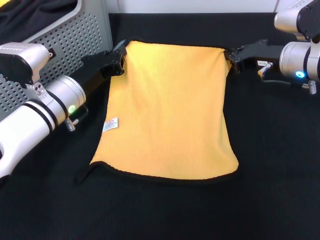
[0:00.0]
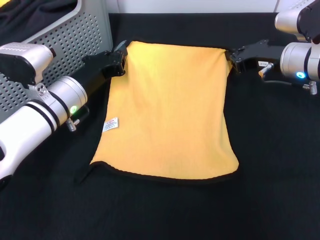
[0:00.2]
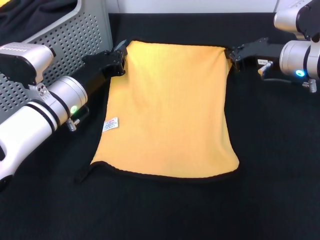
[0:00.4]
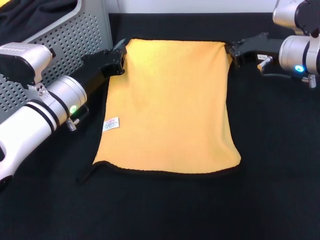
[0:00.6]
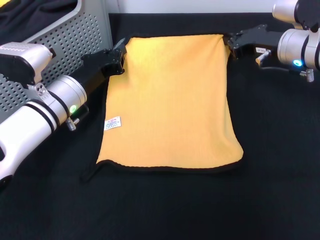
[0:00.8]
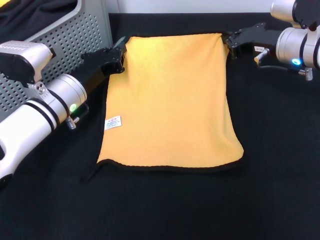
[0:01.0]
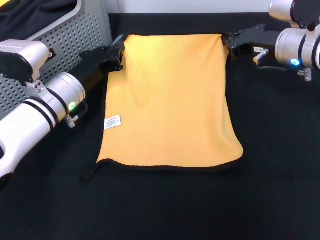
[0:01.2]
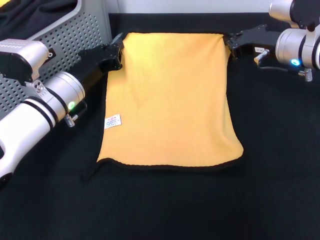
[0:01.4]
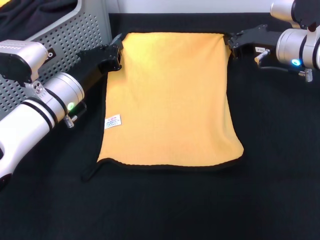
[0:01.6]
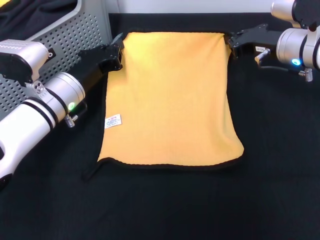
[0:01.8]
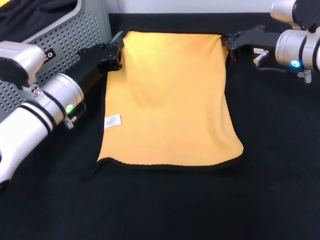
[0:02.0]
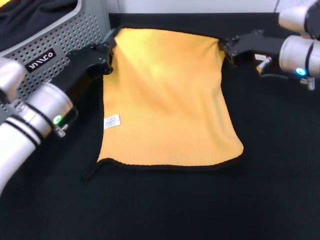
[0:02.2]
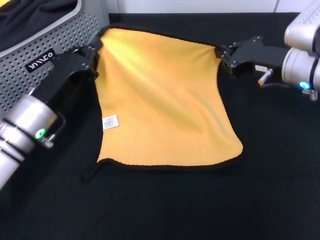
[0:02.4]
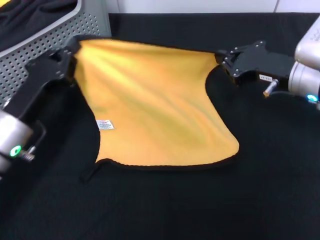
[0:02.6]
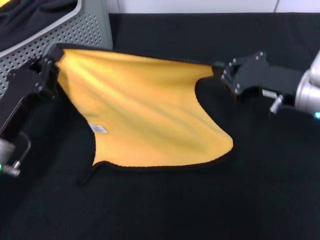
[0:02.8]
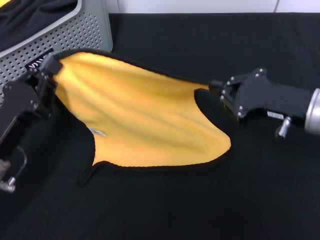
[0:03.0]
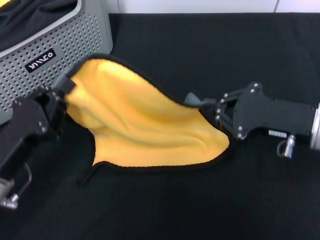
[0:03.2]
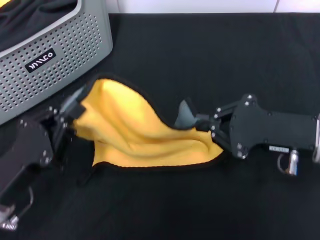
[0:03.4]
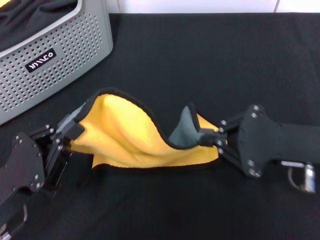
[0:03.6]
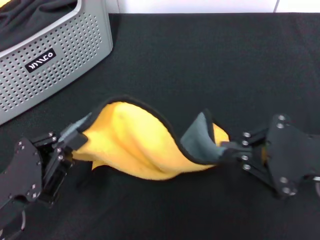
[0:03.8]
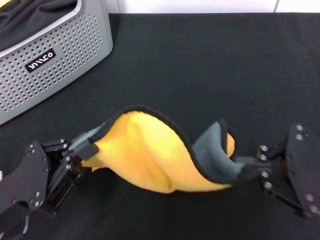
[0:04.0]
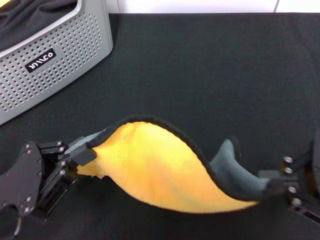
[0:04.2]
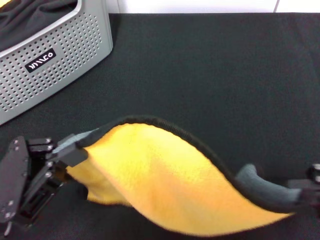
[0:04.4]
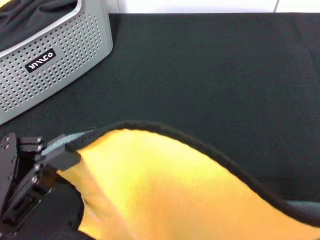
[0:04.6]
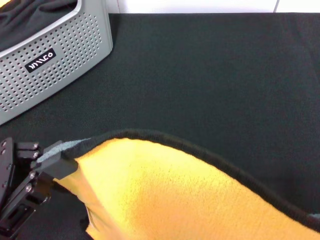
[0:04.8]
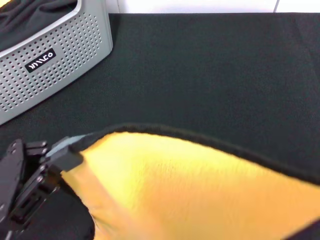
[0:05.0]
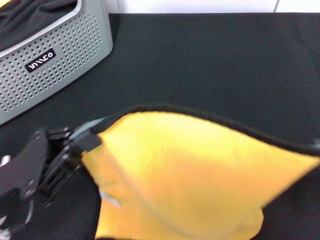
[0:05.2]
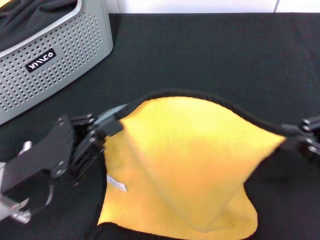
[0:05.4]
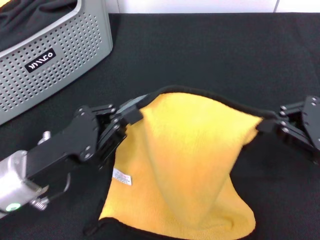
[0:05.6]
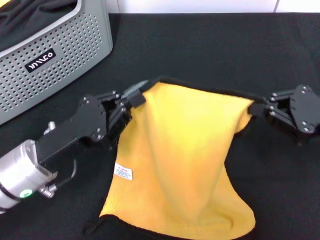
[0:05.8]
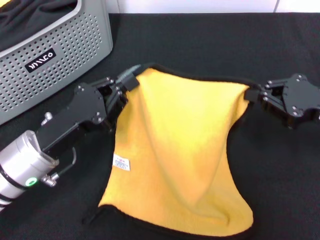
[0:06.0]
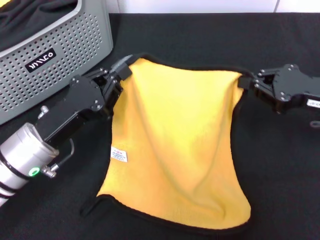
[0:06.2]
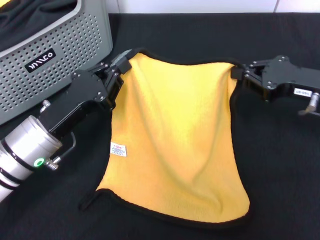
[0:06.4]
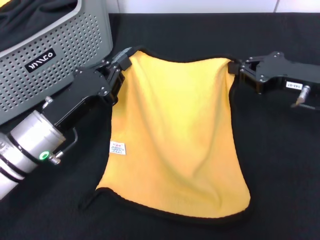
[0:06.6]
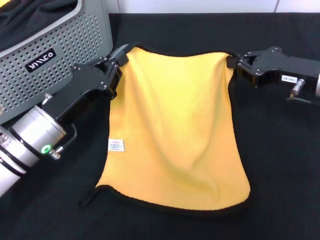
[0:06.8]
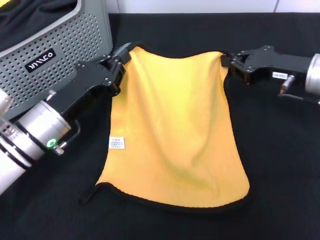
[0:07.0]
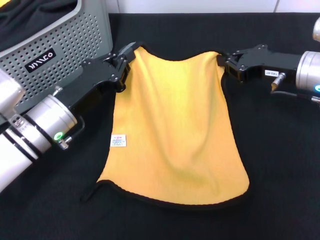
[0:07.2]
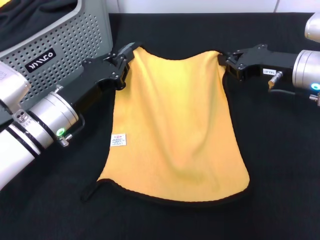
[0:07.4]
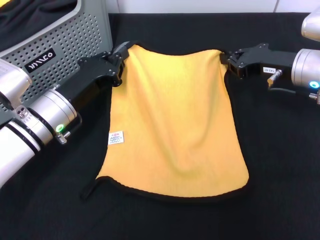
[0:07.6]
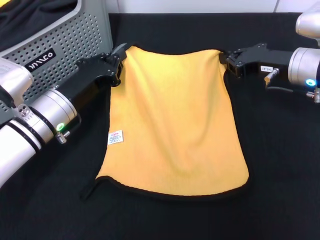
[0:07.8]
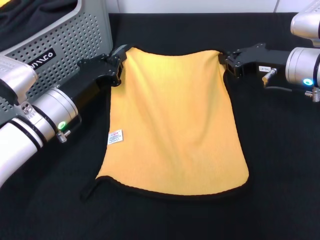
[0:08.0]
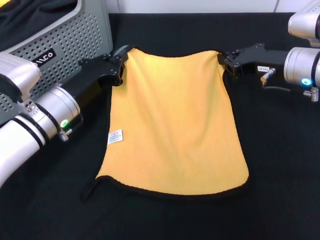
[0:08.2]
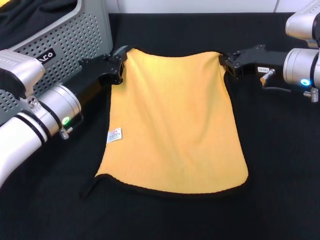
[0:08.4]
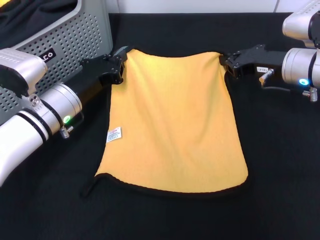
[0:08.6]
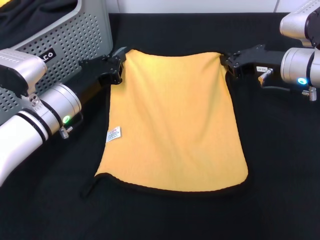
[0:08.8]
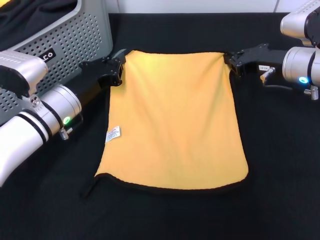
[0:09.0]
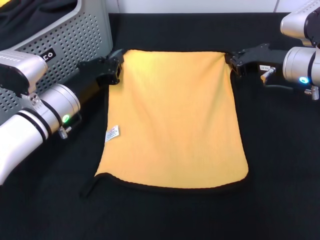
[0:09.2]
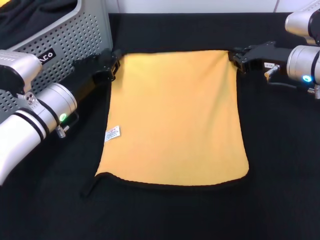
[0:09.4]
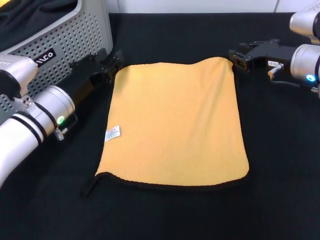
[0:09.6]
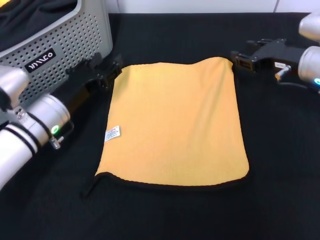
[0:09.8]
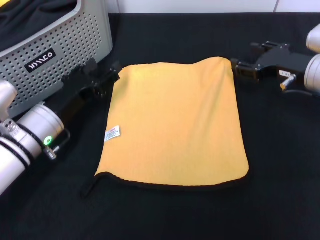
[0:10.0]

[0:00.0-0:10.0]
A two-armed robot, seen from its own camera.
Task of the whole recording: pick up the towel from the storage box and lay it flat on the black tablecloth.
Step, 0:00.0 to 0:09.6: Spread the towel flat with the right gripper.
0:00.0 to 0:01.4: The grippers move only a little.
0:01.4 to 0:02.8: The right gripper heads backward, covering approximately 10 cm; the left gripper heads backward and to the left, covering about 15 cm.
0:02.8 to 0:04.2: The left gripper goes about 10 cm backward; the right gripper is displaced backward, to the right and upward by some 15 cm.
0:04.2 to 0:05.8: The two grippers go roughly 5 cm forward.
0:05.8 to 0:07.2: The left gripper shifts roughly 5 cm forward. Meanwhile the right gripper moves forward and to the left, about 10 cm.
0:08.6 to 0:10.0: The left gripper opens its fingers; the right gripper opens.

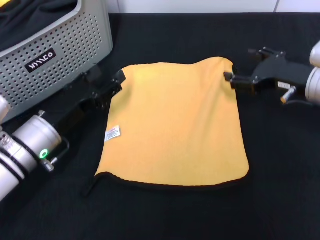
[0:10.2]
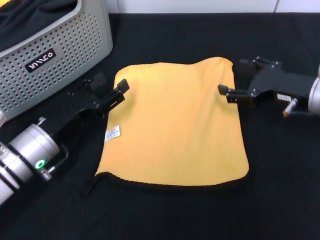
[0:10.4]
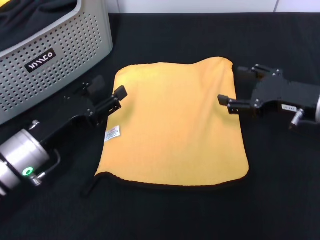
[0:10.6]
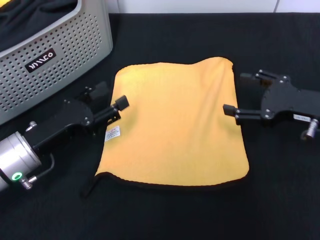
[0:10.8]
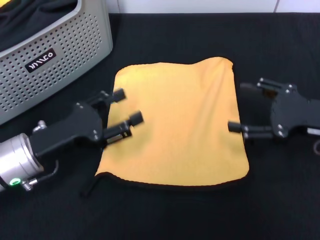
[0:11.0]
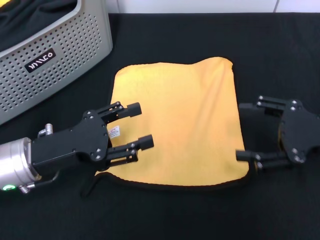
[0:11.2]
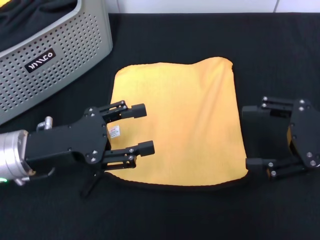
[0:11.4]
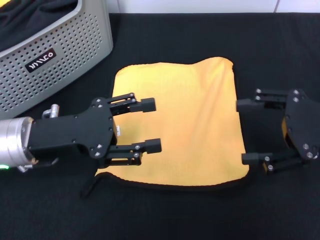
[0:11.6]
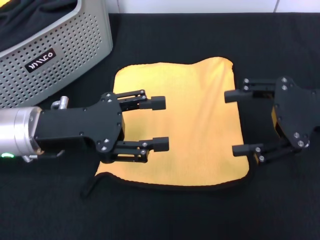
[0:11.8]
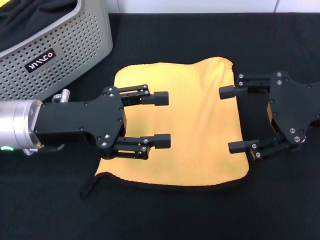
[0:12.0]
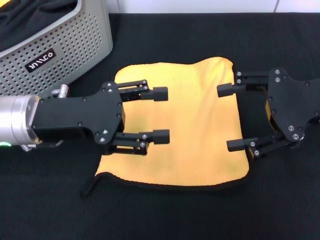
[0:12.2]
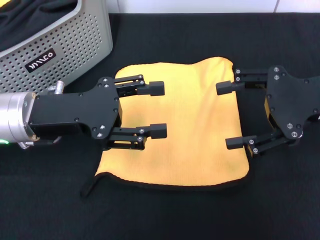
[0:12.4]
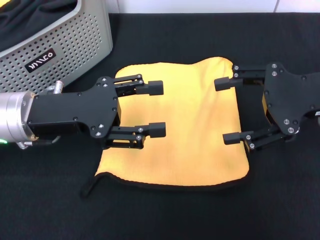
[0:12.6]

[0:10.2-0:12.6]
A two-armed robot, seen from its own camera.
Task of the whole recording: pick up the towel from the storage box and lay it flat on the black tablecloth.
0:10.2 to 0:11.4: The right gripper heads backward, covering about 10 cm; the left gripper heads upward, covering approximately 5 cm.
0:11.4 to 0:12.6: The left gripper changes place by approximately 5 cm. Meanwhile the right gripper ends up about 5 cm from where it was.

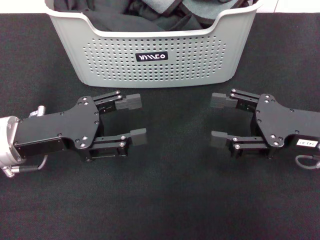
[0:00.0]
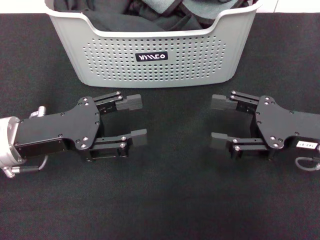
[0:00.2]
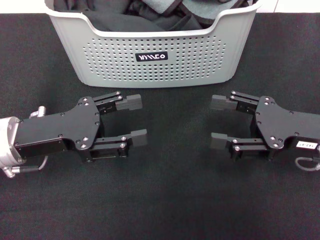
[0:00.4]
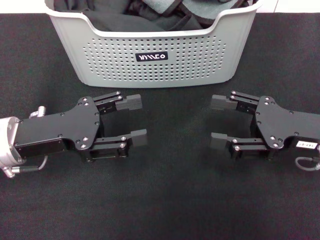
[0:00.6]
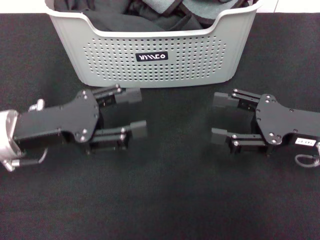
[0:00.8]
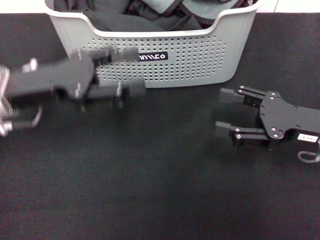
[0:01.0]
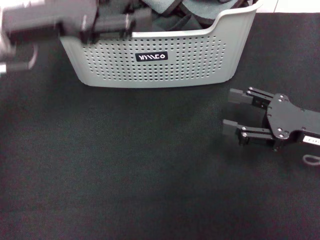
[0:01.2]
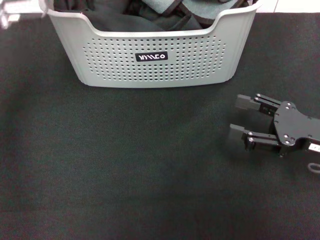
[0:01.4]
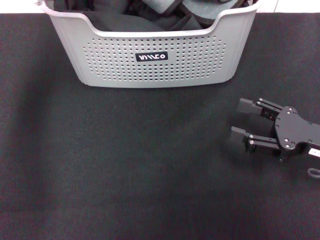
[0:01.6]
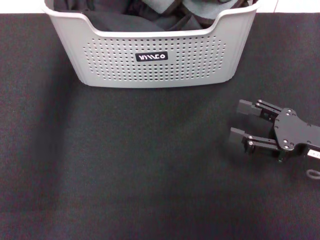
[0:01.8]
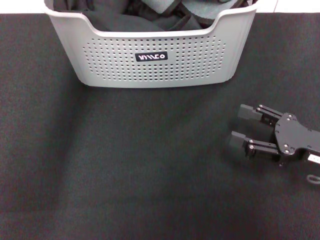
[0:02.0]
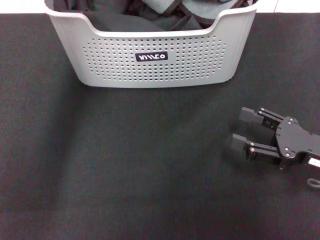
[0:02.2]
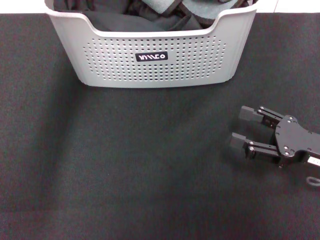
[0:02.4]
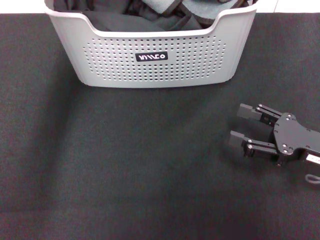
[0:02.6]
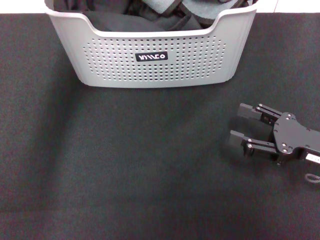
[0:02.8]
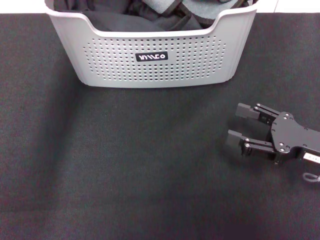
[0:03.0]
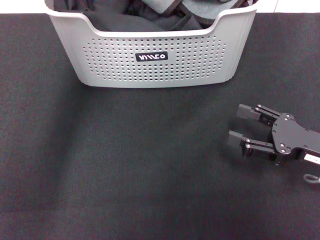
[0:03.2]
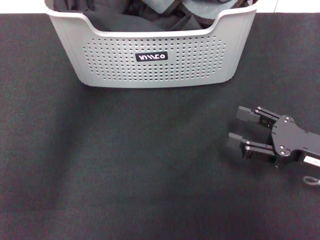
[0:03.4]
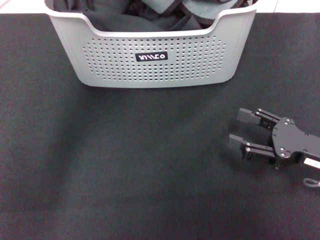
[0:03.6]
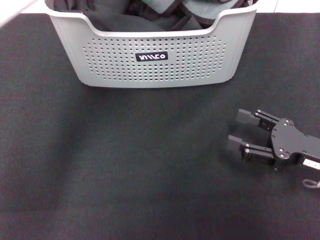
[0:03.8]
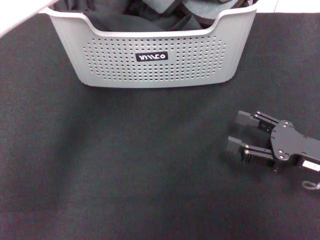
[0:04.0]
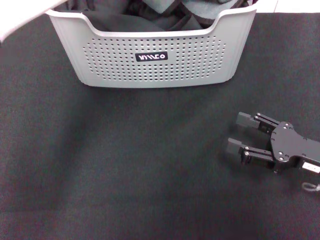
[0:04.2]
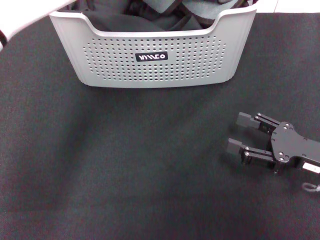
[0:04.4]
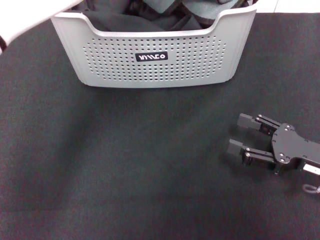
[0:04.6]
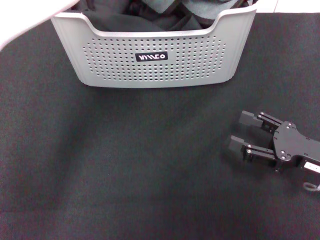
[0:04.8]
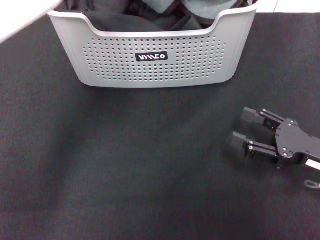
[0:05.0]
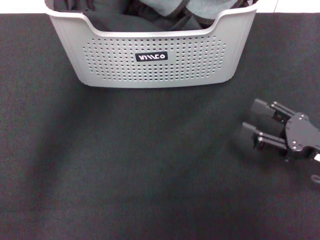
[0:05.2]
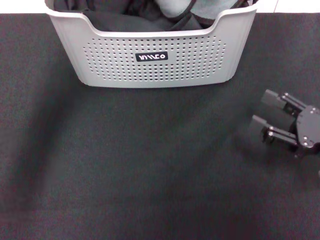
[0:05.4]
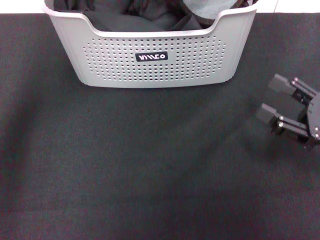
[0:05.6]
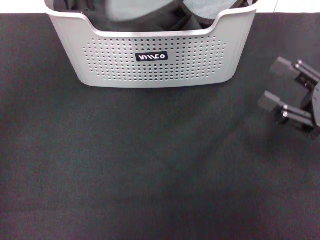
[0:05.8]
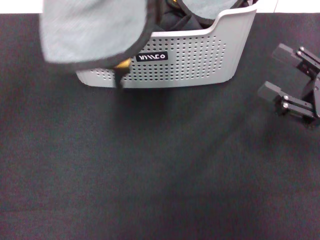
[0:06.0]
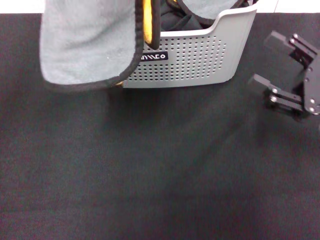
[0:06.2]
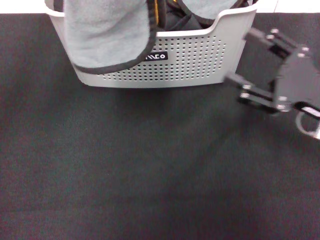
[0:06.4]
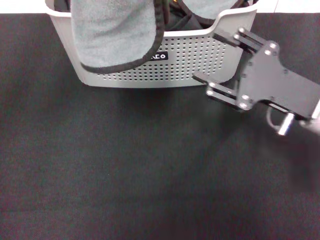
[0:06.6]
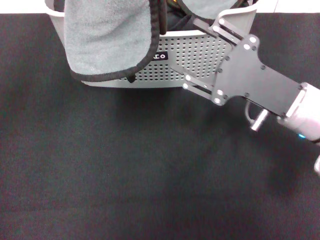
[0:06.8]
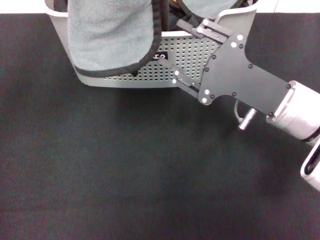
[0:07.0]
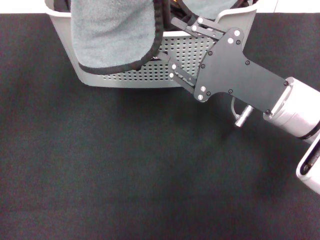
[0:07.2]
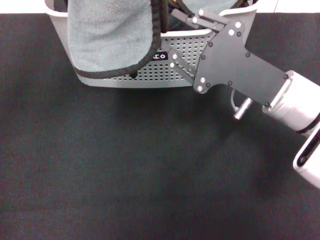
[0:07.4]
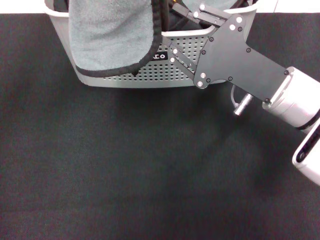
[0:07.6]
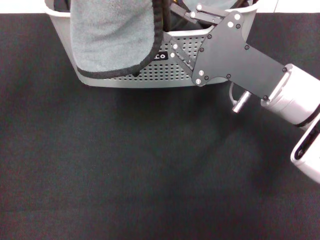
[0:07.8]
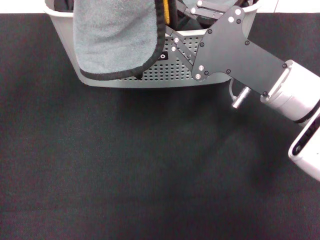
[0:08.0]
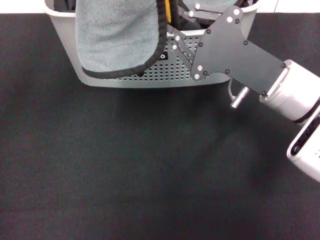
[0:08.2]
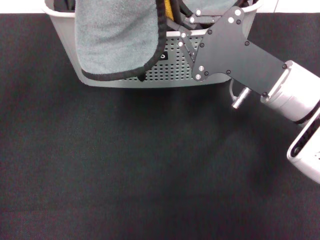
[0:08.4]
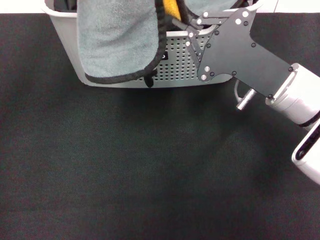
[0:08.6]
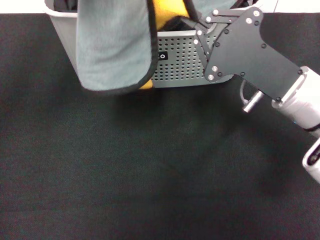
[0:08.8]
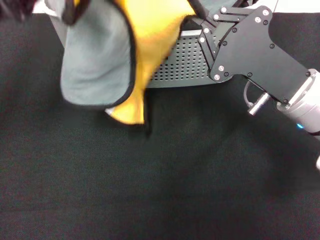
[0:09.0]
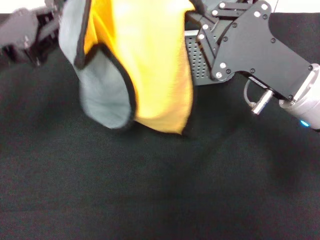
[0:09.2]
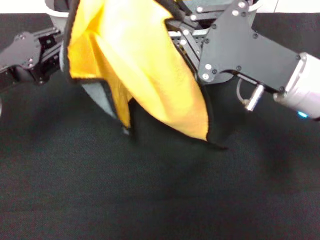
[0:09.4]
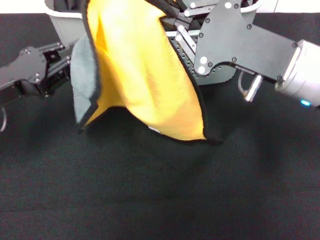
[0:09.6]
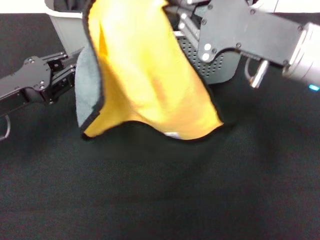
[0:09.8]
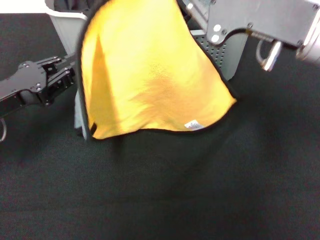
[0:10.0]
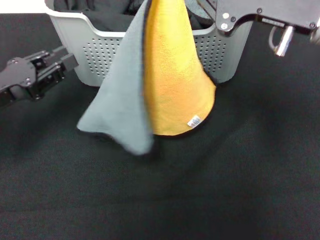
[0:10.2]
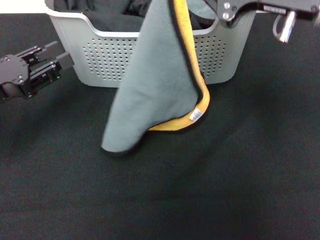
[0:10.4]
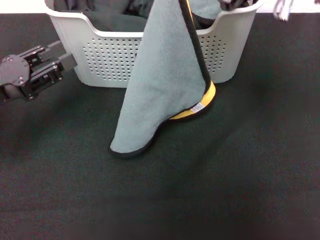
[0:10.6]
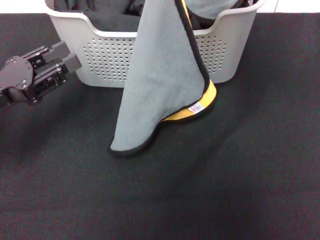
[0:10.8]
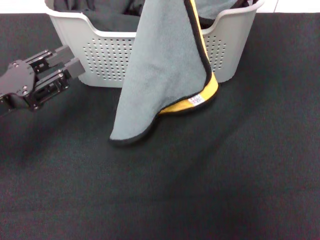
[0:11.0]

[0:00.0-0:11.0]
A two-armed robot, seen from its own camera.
Task of the whole recording: pick up the towel from the storage box and lay it flat on the black tablecloth.
Step, 0:00.0 to 0:04.8: Pick up a towel with the left gripper.
Step, 0:05.0 to 0:08.6: Spread the towel flat with the left gripper.
0:00.0 to 0:01.6: The left gripper is displaced upward, forward and to the right by approximately 20 cm.
0:01.6 to 0:03.2: The left gripper moves left and right over about 10 cm, changing direction 2 times.
0:03.2 to 0:04.8: The left gripper closes.
0:04.8 to 0:06.2: The left gripper goes approximately 25 cm to the left and backward, while the right gripper heads upward, covering approximately 5 cm.
0:06.2 to 0:07.8: The right gripper is displaced to the left by some 10 cm, and closes its fingers.
0:07.8 to 0:09.4: The right gripper closes up; the left gripper heads downward, covering about 15 cm.
0:09.4 to 0:11.0: The right gripper moves upward and forward, approximately 15 cm. Meanwhile the left gripper opens.
